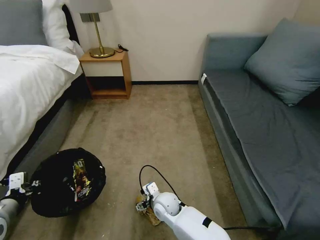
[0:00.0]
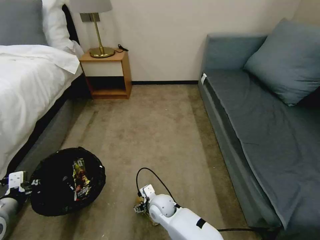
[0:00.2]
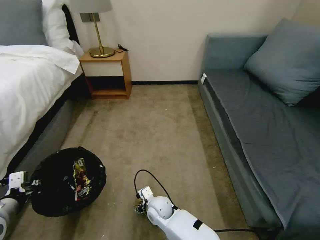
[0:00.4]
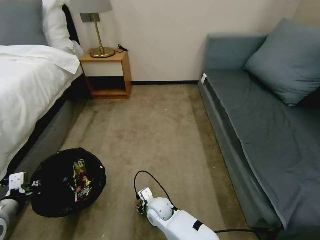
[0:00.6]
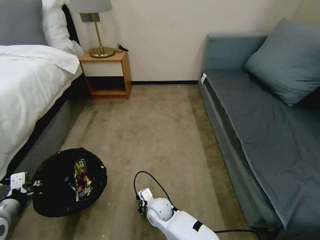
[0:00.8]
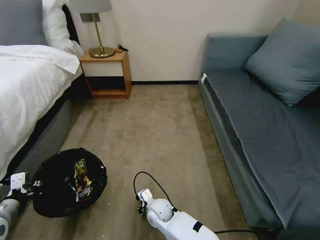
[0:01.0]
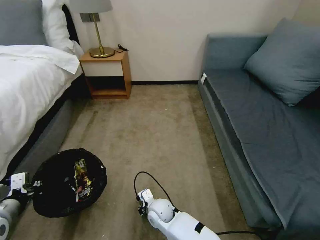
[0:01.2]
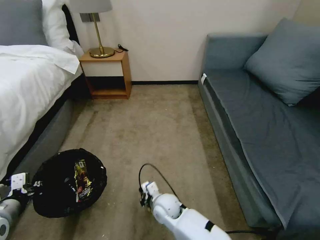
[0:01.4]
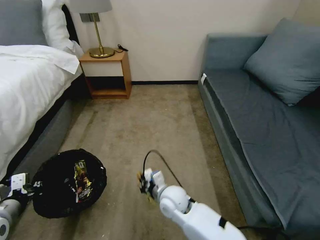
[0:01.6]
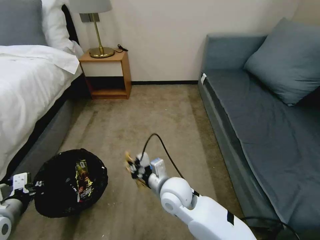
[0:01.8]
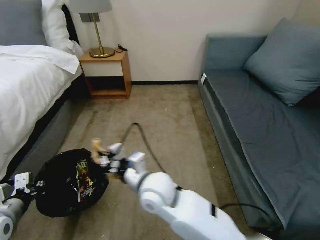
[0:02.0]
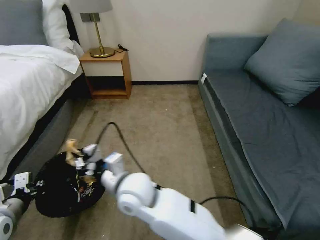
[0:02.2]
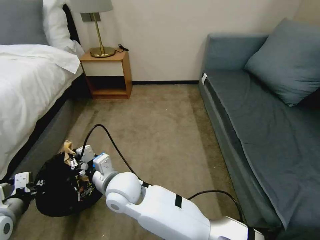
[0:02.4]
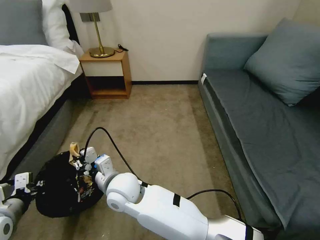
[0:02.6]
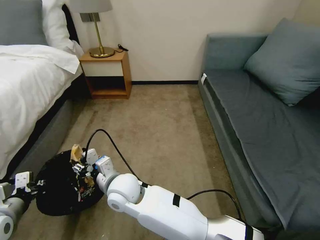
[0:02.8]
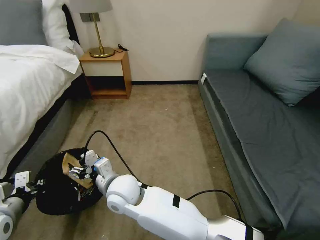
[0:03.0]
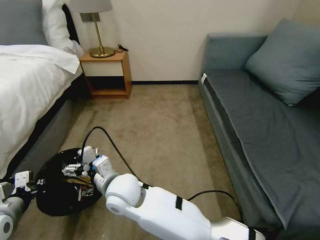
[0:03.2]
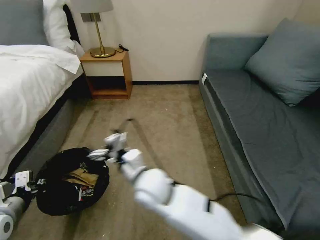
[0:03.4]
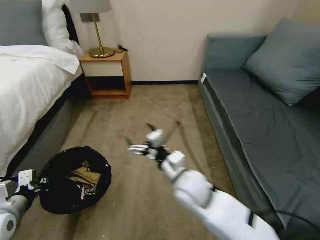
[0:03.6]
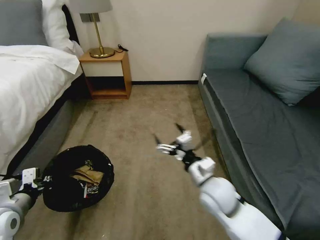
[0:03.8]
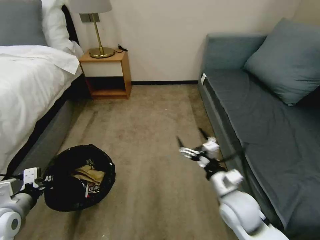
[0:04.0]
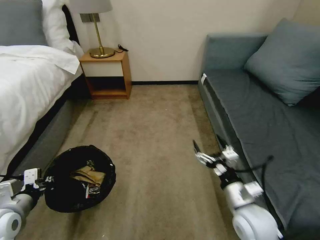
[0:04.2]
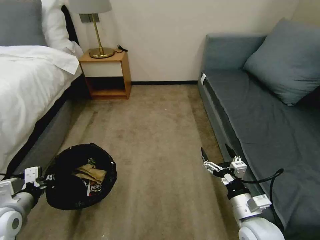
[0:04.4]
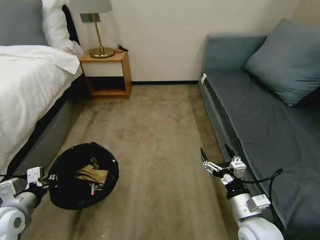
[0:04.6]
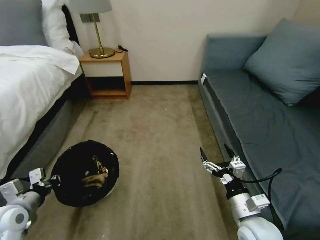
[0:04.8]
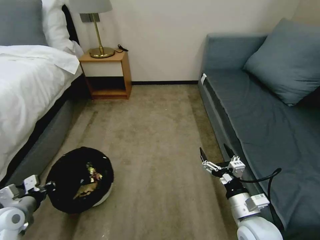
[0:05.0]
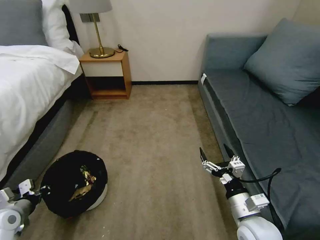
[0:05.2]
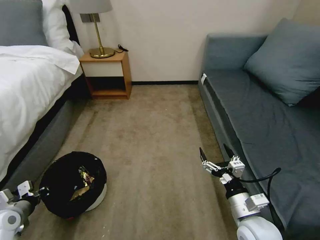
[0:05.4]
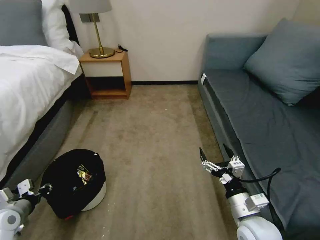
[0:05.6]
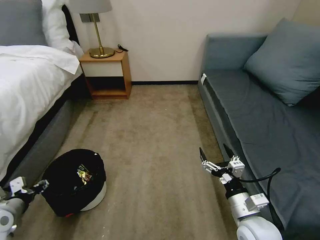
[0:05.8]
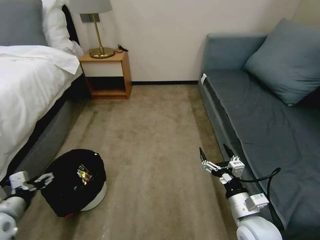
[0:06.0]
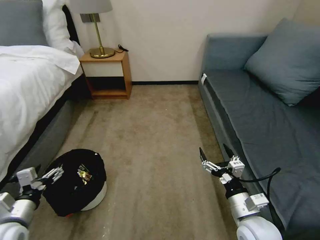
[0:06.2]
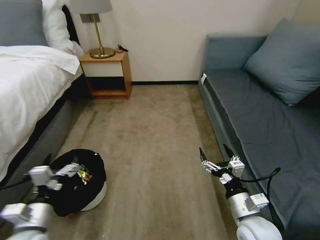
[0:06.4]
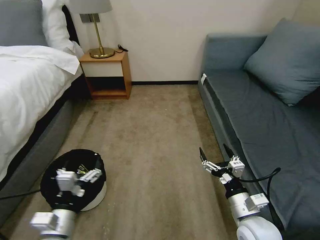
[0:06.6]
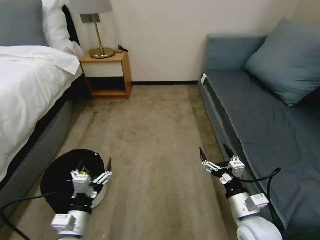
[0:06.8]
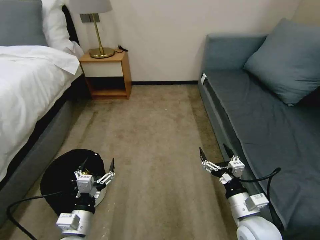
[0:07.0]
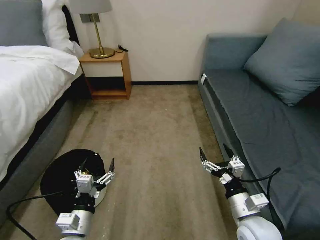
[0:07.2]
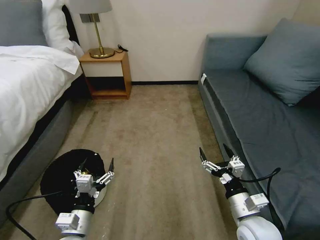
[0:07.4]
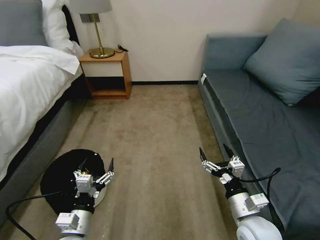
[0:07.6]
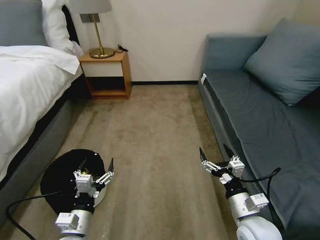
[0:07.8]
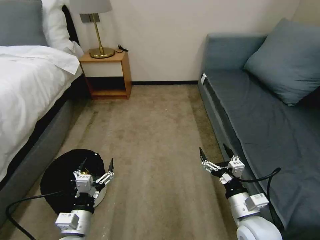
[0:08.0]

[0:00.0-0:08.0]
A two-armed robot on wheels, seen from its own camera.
Task of the whole recording: Pick up the trash bin, then pick up the garbage on the floor and place it into the trash bin.
0.0 to 1.6 s: The right gripper is displaced upward by roughly 10 cm, and closes its fingers.
1.6 to 3.2 s: The right gripper moves to the left and upward, approximately 20 cm, and opens its fingers.
3.2 to 4.8 s: The right gripper is displaced to the right by approximately 35 cm.
4.8 to 6.4 s: The left gripper is displaced to the right and backward by approximately 10 cm, and opens.
6.4 to 8.0 s: The left gripper is displaced to the right by roughly 10 cm.

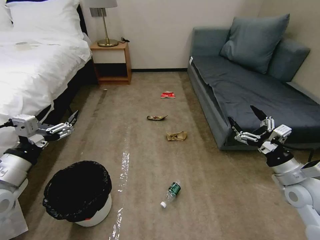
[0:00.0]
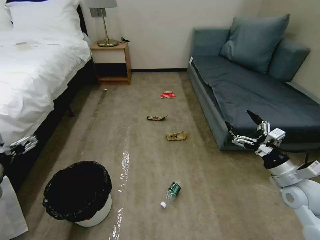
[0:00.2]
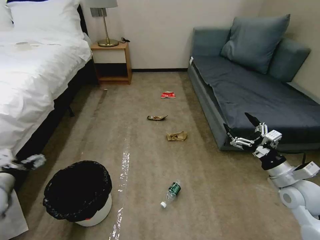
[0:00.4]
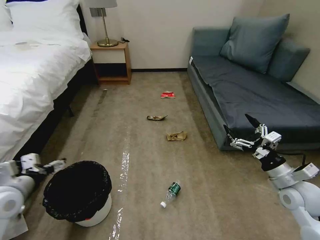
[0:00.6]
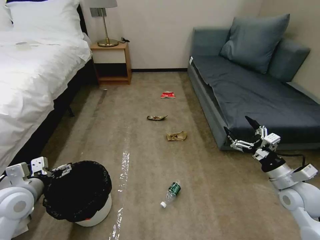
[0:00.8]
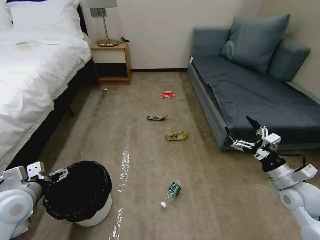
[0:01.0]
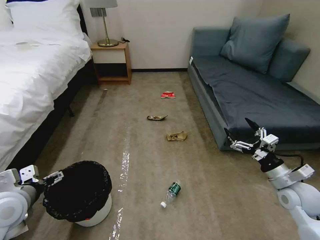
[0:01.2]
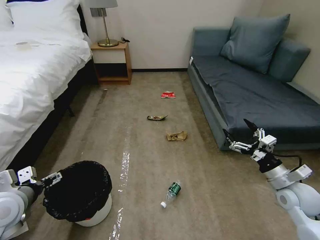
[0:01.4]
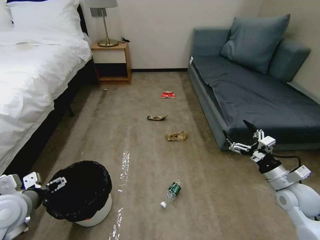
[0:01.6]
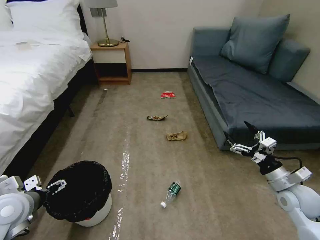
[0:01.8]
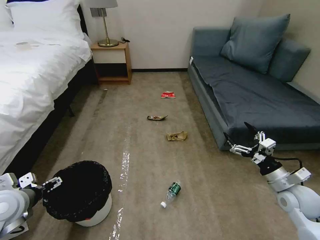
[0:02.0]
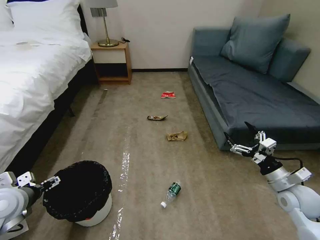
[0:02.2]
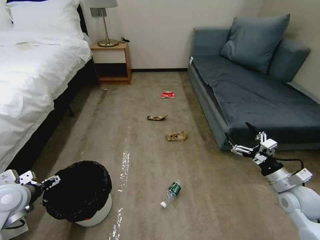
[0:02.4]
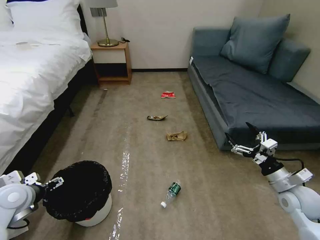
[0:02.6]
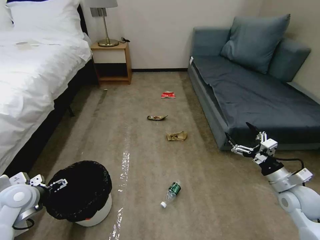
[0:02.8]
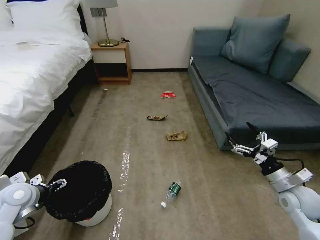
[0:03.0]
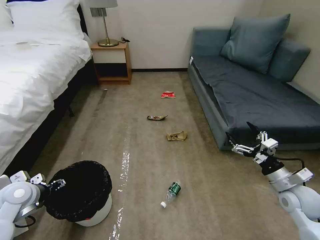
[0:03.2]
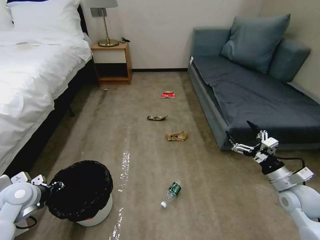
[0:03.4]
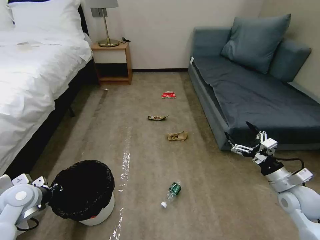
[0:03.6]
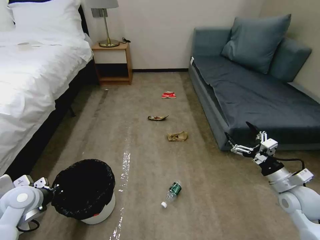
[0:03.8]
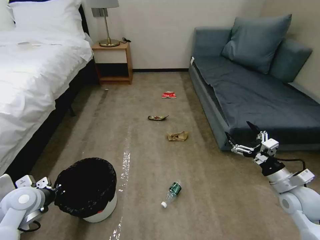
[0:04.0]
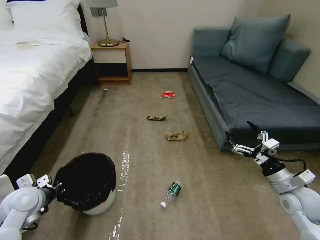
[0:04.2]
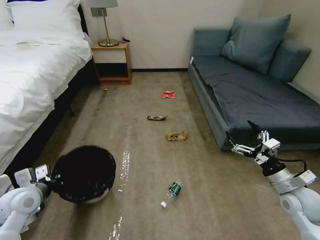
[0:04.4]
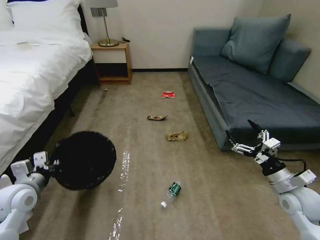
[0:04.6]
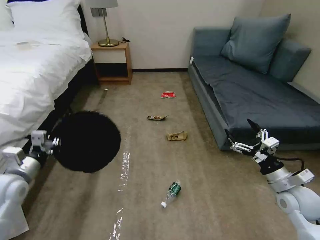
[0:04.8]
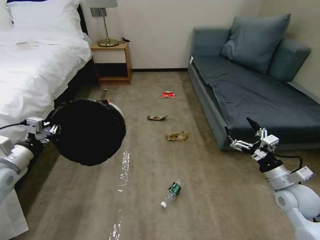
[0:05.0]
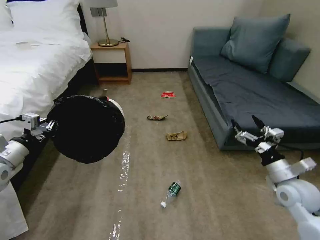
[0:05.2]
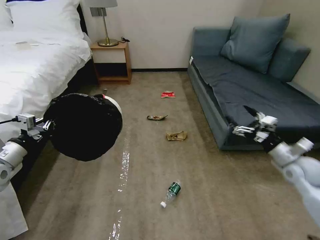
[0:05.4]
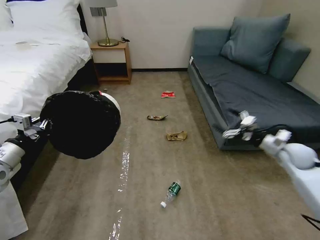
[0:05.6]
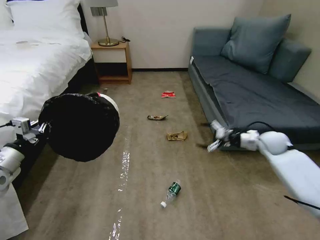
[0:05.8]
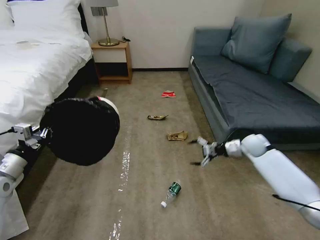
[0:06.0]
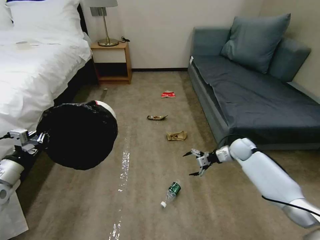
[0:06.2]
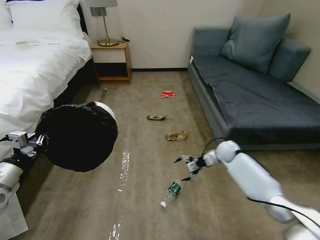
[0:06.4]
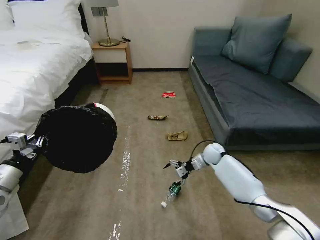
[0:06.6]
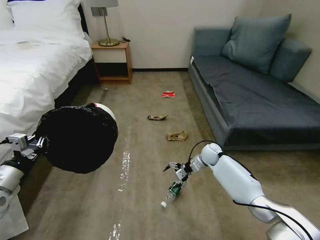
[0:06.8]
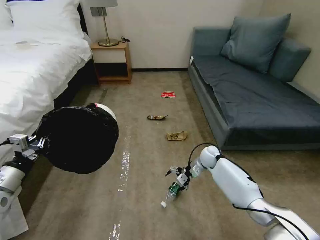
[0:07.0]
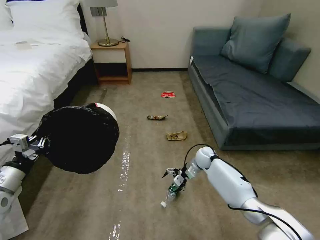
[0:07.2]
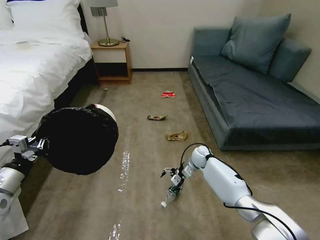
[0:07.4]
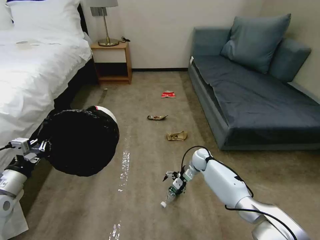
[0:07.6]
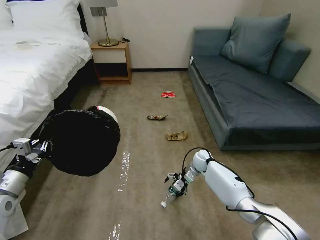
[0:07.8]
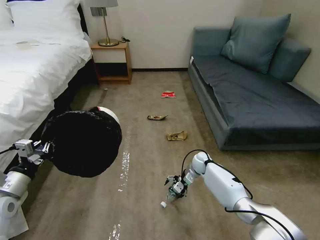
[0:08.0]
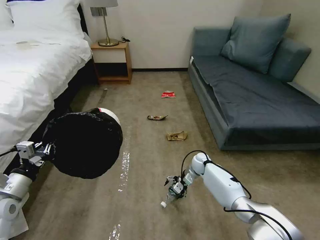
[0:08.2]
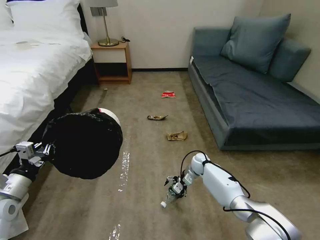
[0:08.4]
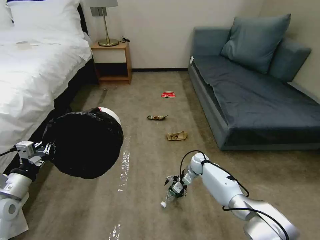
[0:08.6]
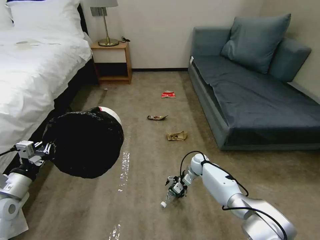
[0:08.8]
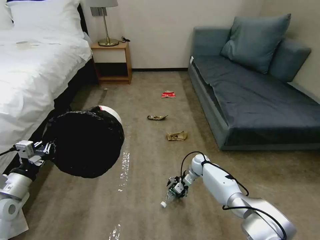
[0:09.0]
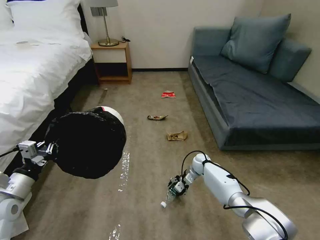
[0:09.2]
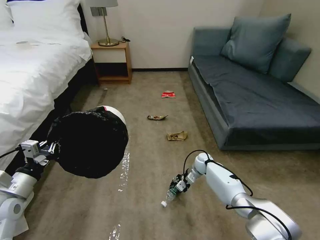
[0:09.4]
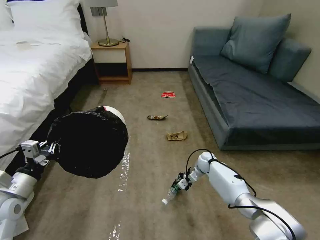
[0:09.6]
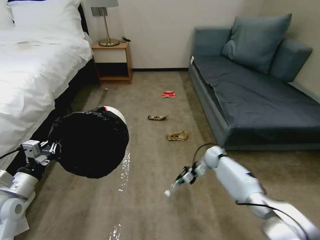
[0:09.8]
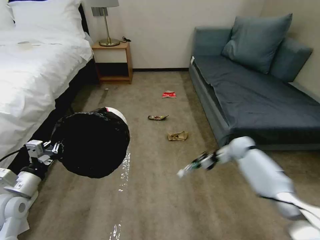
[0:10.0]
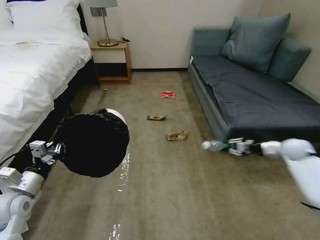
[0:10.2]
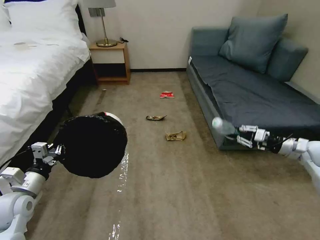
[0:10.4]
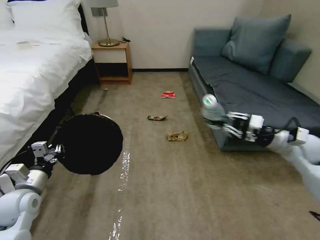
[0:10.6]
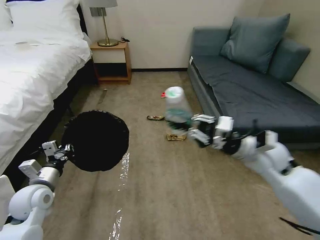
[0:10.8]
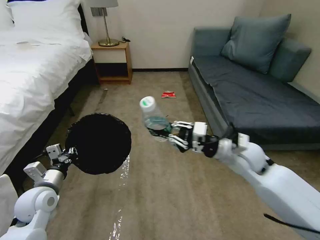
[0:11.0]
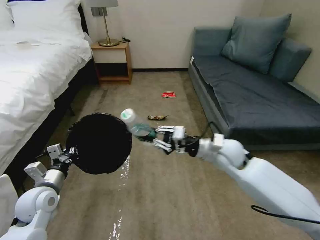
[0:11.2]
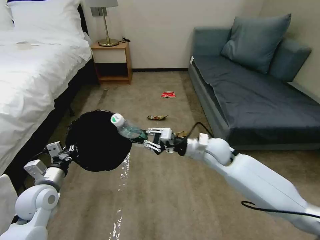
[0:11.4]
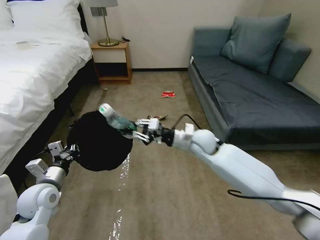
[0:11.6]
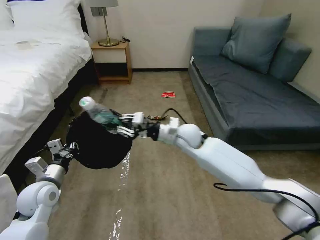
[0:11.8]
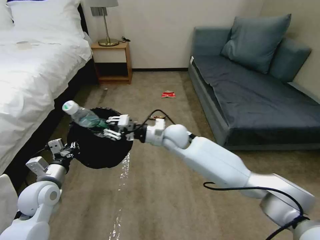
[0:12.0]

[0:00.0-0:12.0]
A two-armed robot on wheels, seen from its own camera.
Task of the whole recording: Pick up the trash bin, then pick up the garbage on the floor and place it into the trash bin.
1.6 to 3.0 s: The left gripper heads forward and downward, covering about 10 cm.
3.0 to 4.4 s: The left gripper closes its fingers.
4.4 to 6.0 s: The right gripper is displaced forward by approximately 25 cm. Meanwhile the left gripper goes approximately 5 cm to the left.
6.0 to 7.6 s: The right gripper heads to the left and downward, covering about 20 cm.
7.6 to 9.0 s: The right gripper heads downward, covering approximately 5 cm.
9.0 to 10.4 s: The right gripper moves to the right and upward, approximately 40 cm, and closes.
10.4 to 12.0 s: The right gripper moves to the left, about 50 cm. The left gripper heads to the right, covering approximately 5 cm.

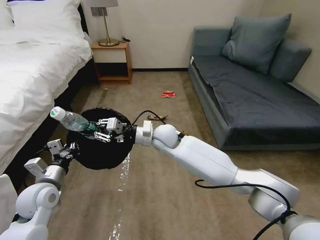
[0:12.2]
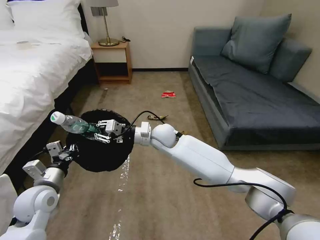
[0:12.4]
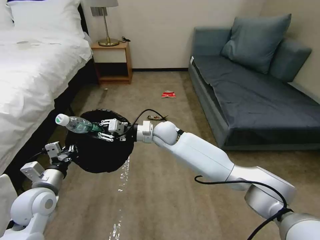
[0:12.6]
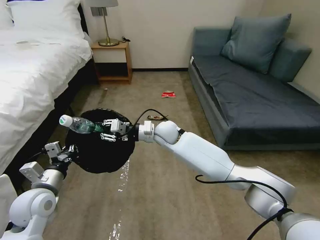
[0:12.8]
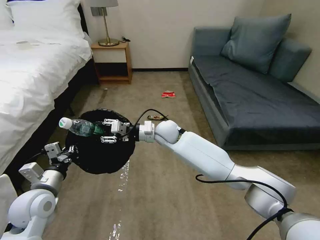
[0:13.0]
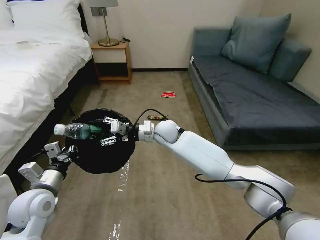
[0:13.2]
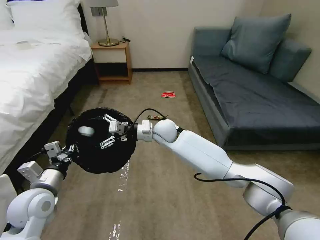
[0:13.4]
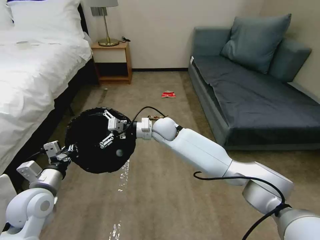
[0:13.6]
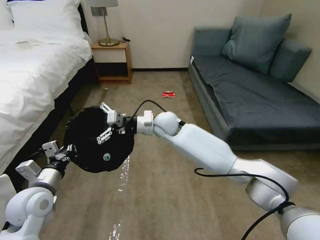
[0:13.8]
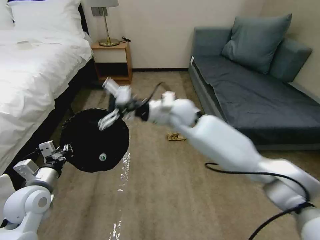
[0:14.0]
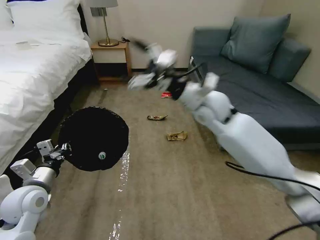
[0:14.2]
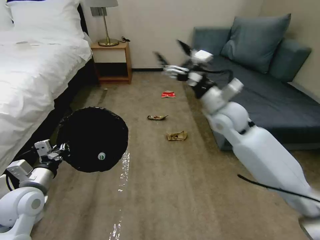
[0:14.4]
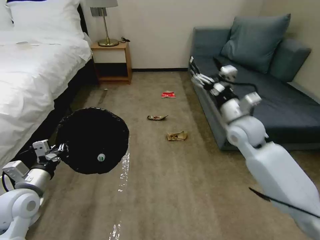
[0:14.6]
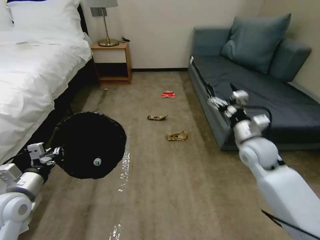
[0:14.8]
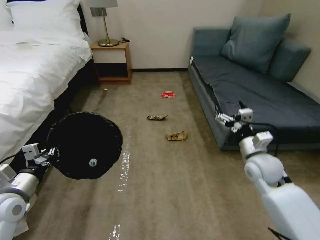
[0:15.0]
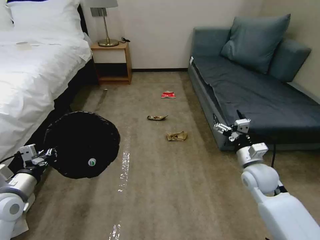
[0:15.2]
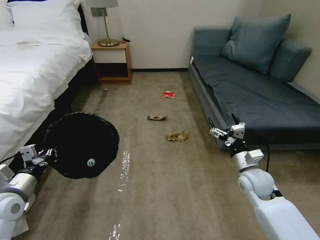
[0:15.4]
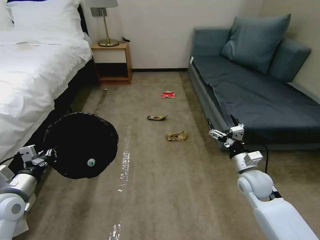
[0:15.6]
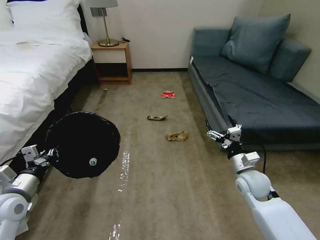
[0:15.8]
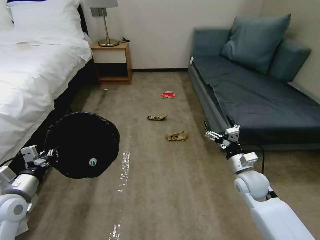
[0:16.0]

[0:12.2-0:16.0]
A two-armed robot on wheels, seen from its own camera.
Task of the whole recording: Pick up the trash bin, then pick up the garbage on the floor and place it into the trash bin.
12.2 to 13.4 s: The right gripper opens its fingers.
13.4 to 14.8 s: The right gripper travels to the right by approximately 30 cm, while the left gripper shifts by approximately 5 cm.
14.8 to 16.0 s: The right gripper is displaced downward and backward by approximately 15 cm.
